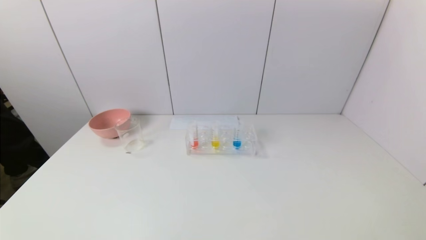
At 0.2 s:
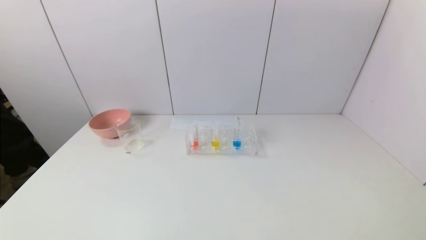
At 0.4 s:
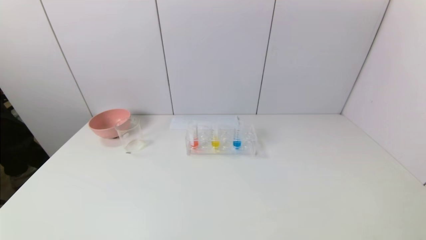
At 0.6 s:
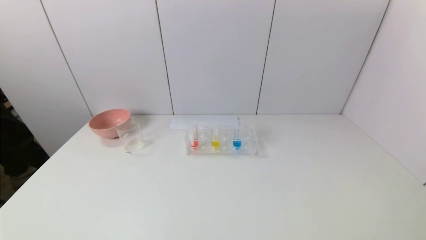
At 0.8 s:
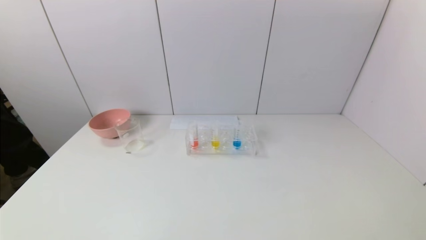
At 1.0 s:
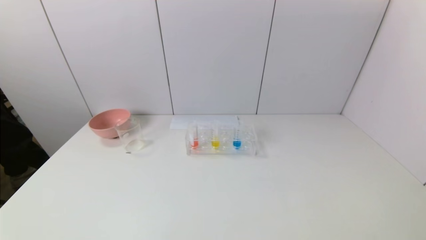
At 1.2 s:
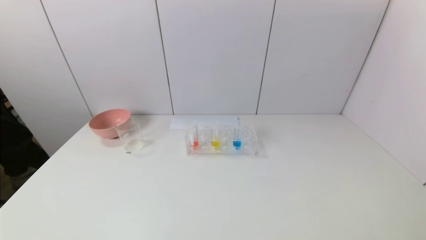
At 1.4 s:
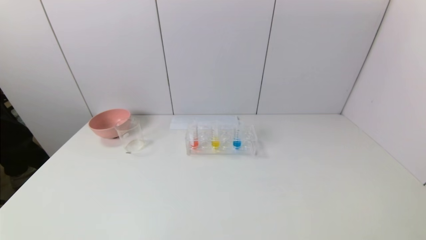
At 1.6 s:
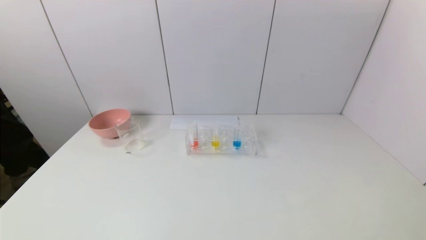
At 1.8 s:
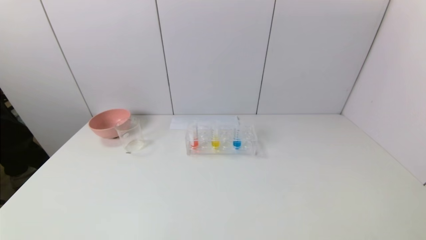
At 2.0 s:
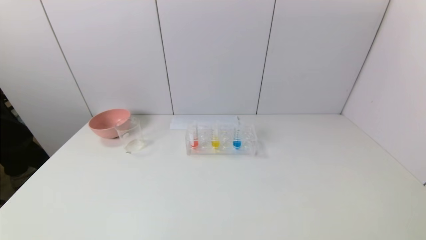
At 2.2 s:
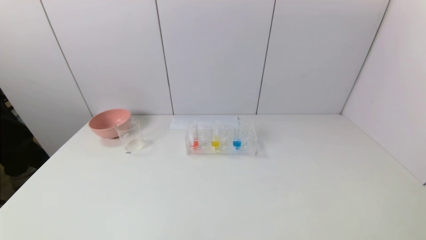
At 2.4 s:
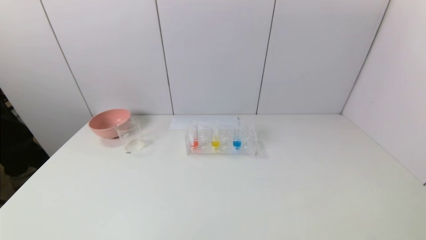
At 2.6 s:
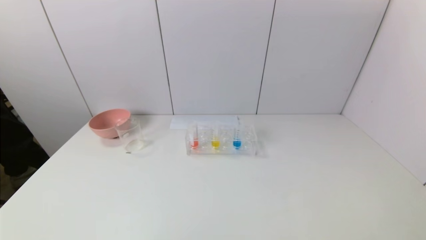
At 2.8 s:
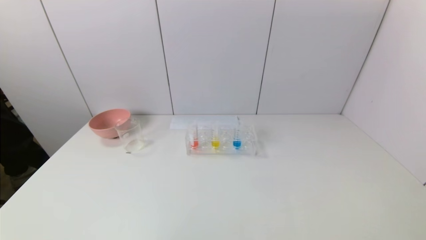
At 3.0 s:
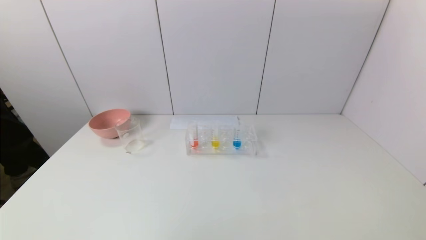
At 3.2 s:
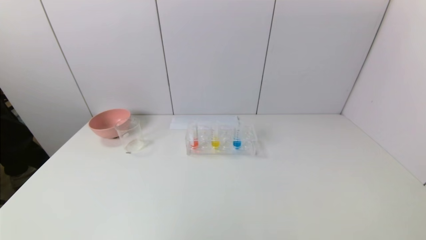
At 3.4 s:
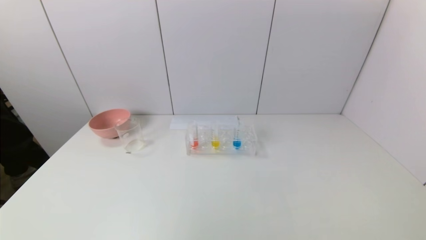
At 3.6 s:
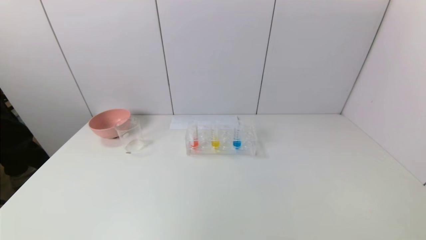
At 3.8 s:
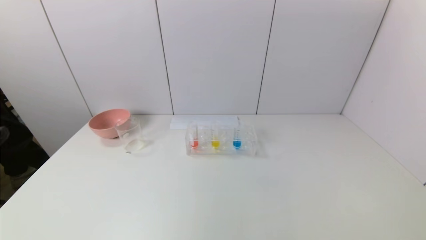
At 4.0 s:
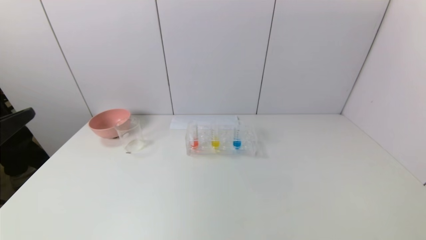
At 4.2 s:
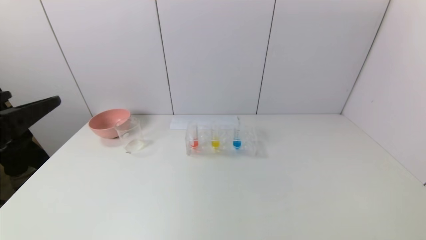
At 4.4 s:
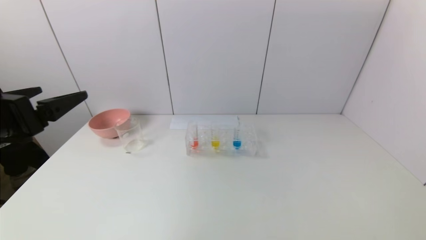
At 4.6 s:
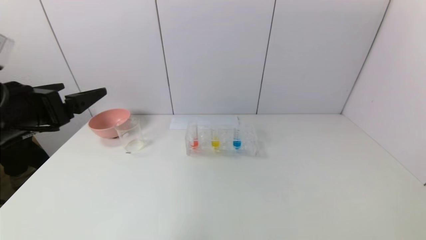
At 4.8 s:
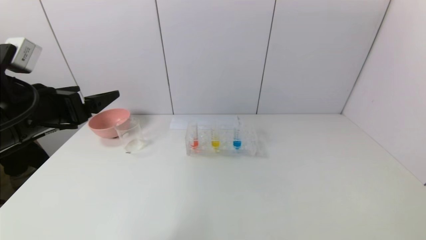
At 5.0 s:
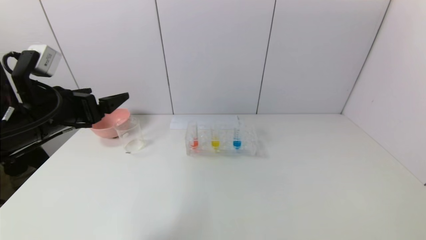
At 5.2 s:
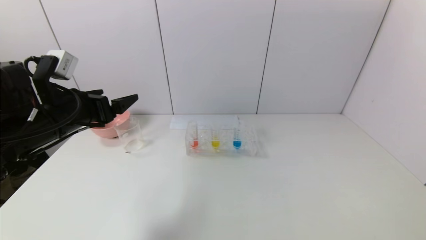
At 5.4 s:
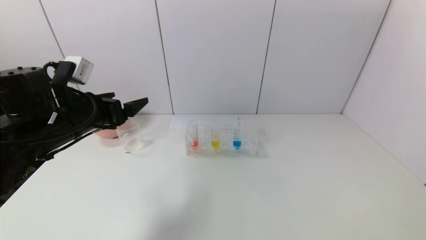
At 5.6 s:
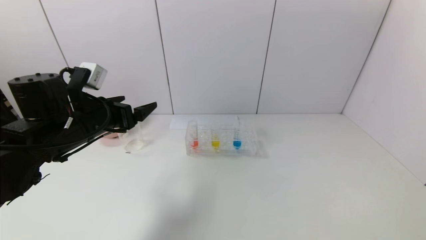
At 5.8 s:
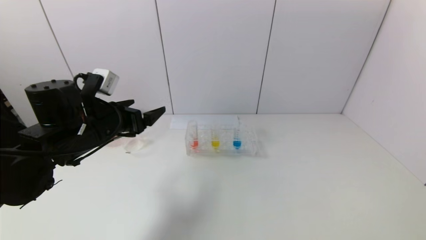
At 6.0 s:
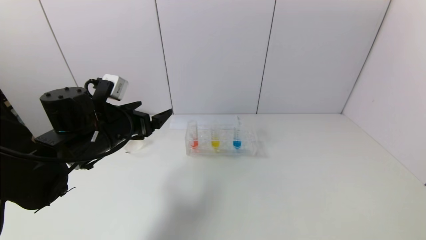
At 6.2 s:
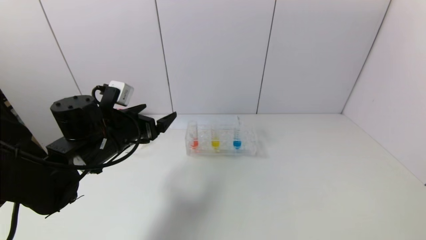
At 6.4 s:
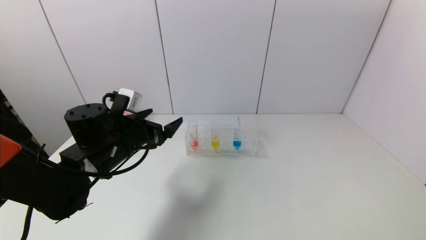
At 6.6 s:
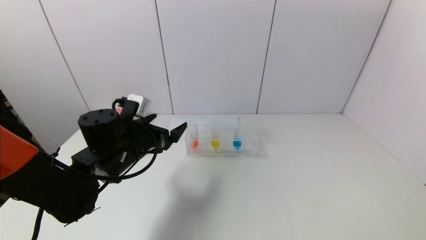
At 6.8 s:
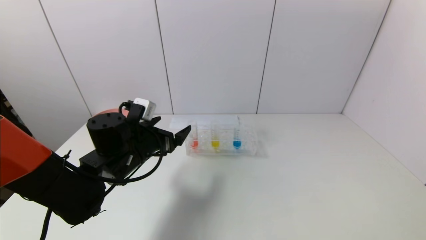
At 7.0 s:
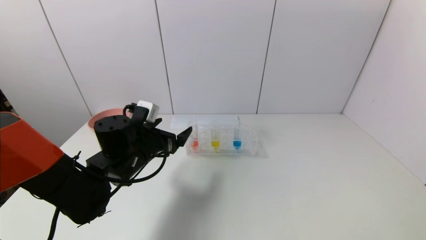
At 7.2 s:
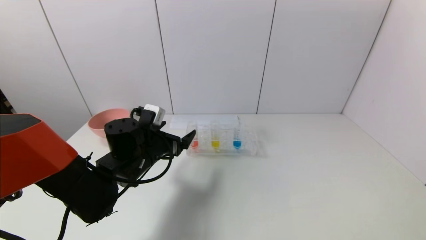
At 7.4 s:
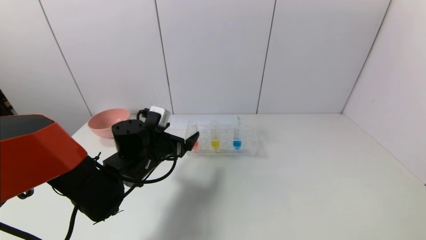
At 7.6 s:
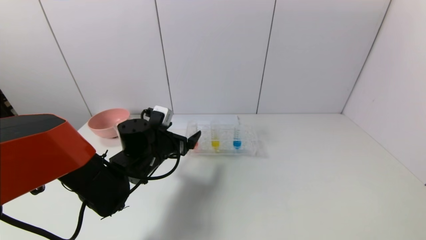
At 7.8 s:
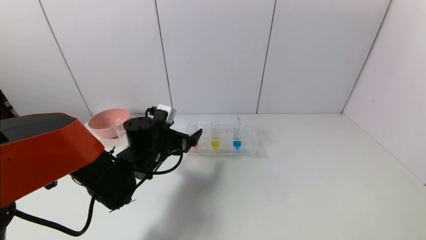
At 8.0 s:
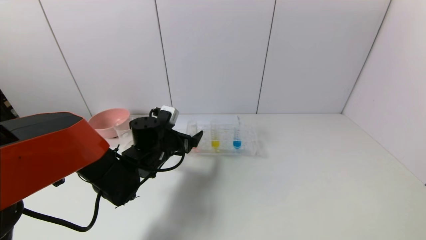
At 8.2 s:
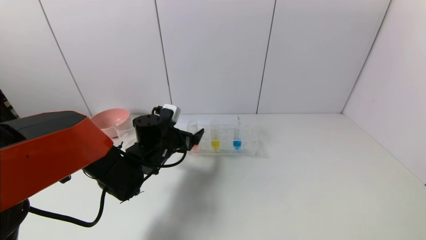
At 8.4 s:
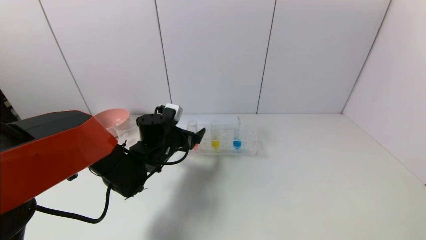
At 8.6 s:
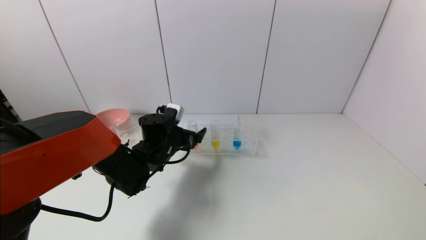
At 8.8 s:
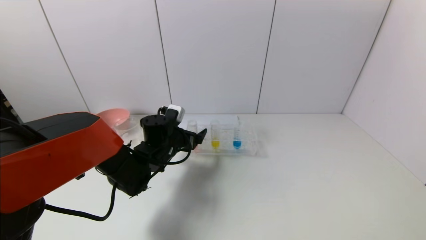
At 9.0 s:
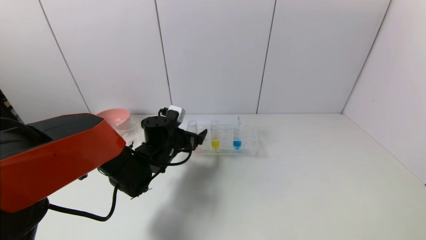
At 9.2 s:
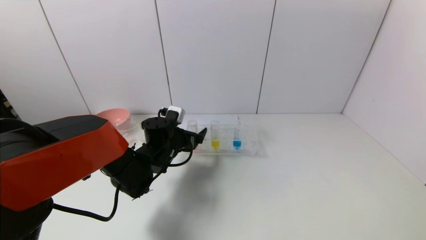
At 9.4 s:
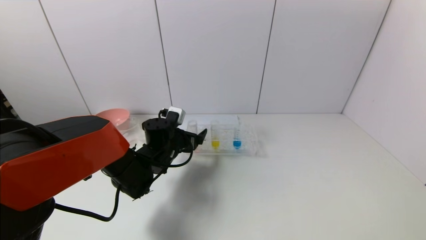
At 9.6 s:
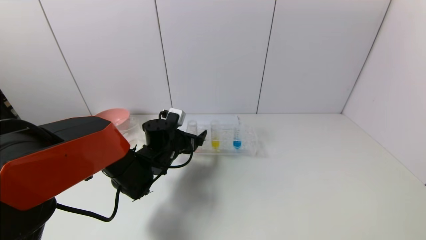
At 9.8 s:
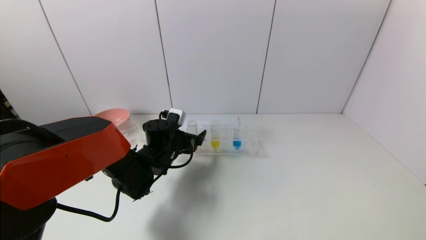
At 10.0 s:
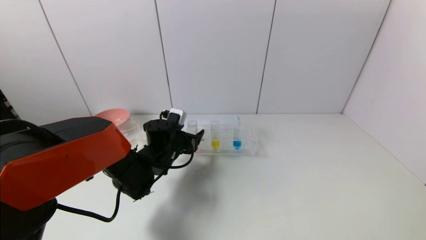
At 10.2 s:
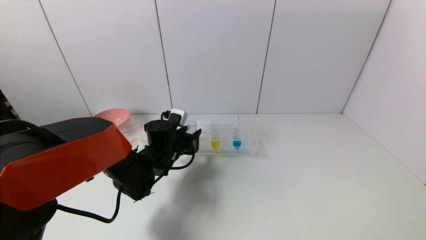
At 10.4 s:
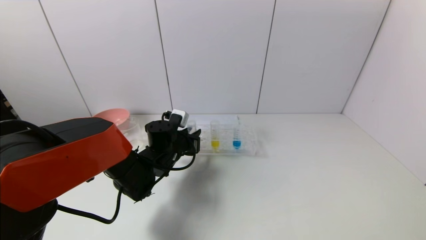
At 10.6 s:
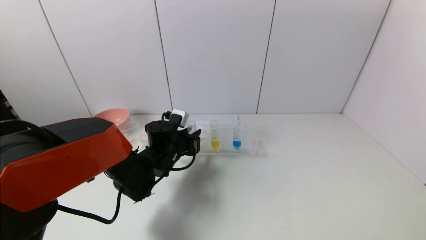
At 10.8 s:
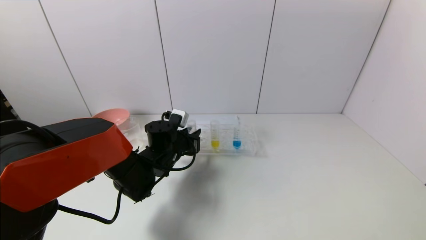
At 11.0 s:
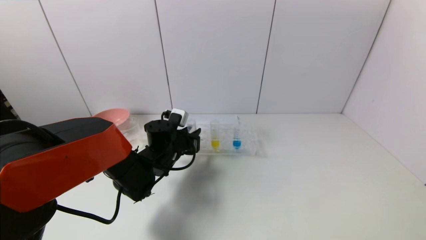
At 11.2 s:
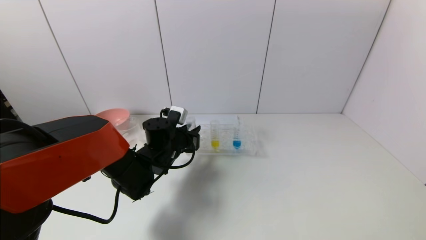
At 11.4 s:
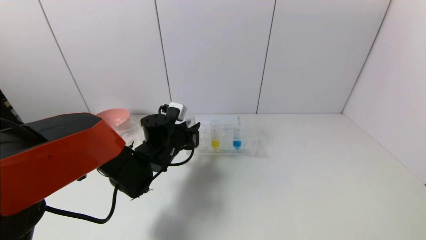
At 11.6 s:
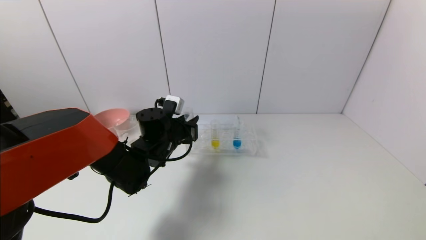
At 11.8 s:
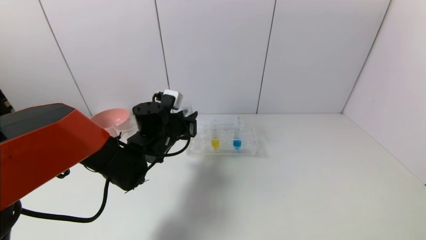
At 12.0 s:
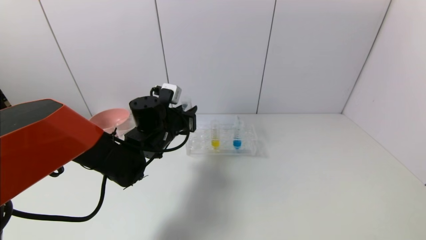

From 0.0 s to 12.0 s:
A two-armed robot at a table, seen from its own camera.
Task of the whole recording: pick up the test tube with yellow pigment and the test tube with red pigment by grippers and pour them into the beaker.
Step, from 0.0 s to 10.4 s: Grasp the red reagent with the left gripper.
From 0.0 s to 1.6 s: Both grippers stay put.
From 3.0 s to 4.4 s: The left gripper is displaced forward and upward by about 20 cm.
From 4.4 s to 6.0 s: The left gripper shifts about 15 cm forward, downward and to the right.
From 6.0 s to 7.6 s: The left gripper shifts roughly 10 cm downward and to the right.
From 7.6 s to 9.0 s: The left gripper moves roughly 5 cm.
From 9.0 s to 10.4 s: The left gripper closes.
From 10.4 s to 12.0 s: The left gripper is displaced upward by roughly 5 cm.

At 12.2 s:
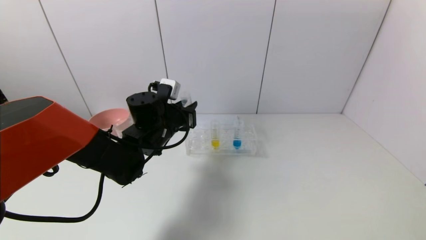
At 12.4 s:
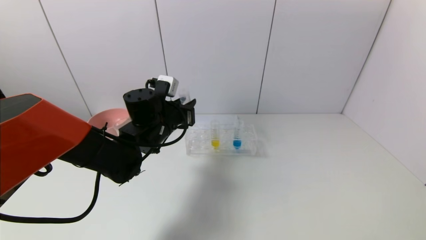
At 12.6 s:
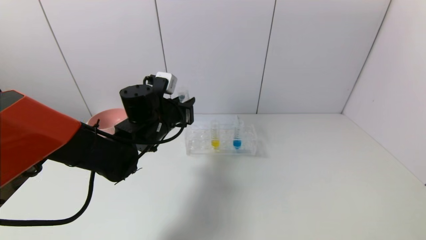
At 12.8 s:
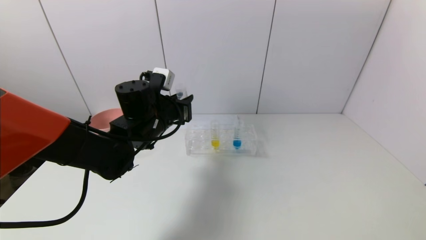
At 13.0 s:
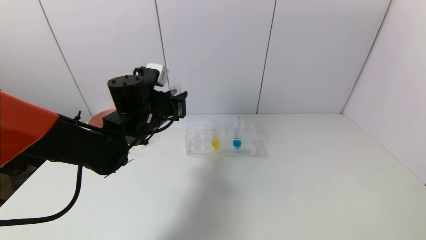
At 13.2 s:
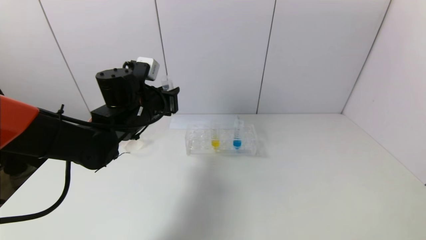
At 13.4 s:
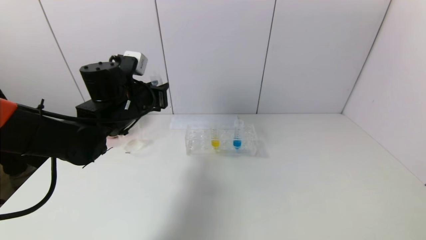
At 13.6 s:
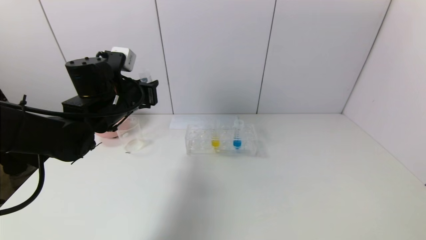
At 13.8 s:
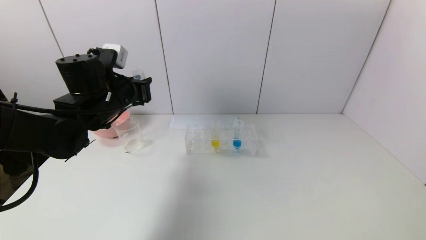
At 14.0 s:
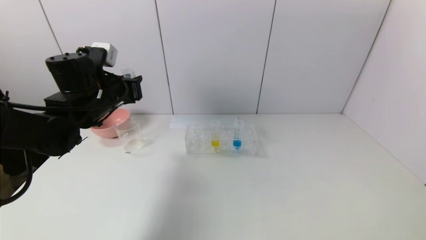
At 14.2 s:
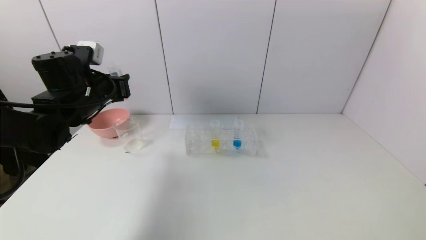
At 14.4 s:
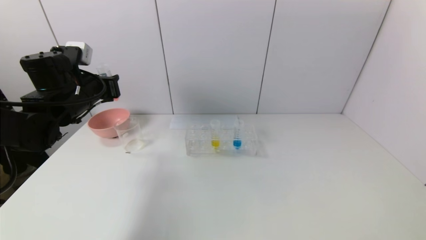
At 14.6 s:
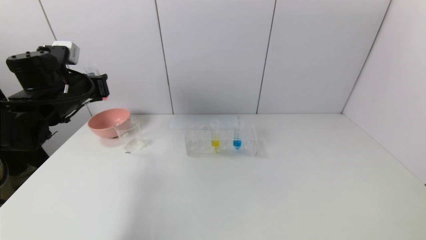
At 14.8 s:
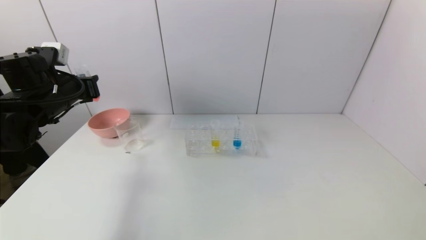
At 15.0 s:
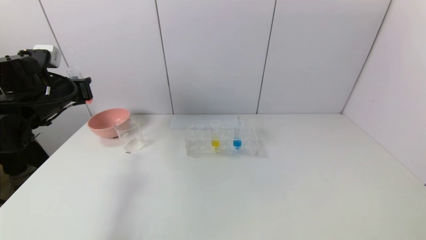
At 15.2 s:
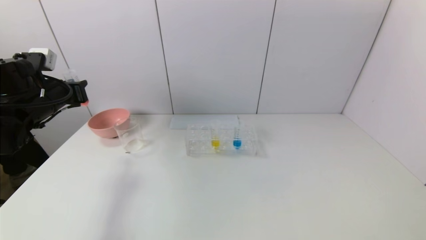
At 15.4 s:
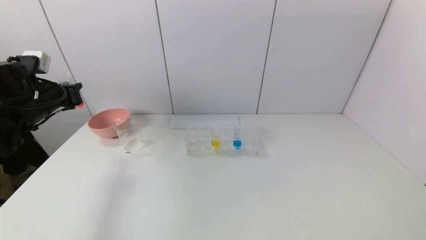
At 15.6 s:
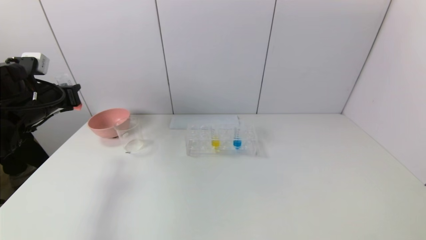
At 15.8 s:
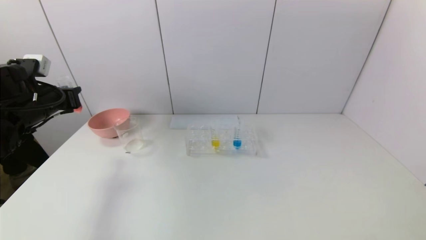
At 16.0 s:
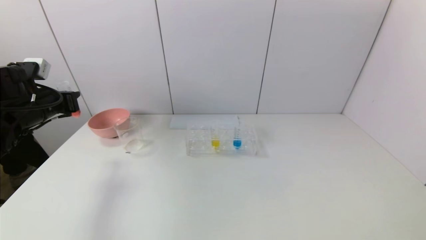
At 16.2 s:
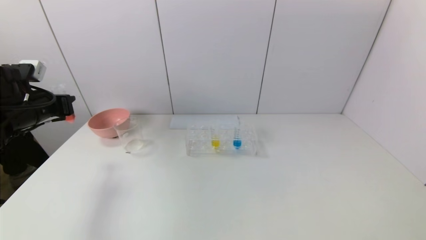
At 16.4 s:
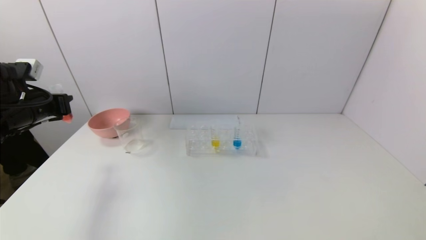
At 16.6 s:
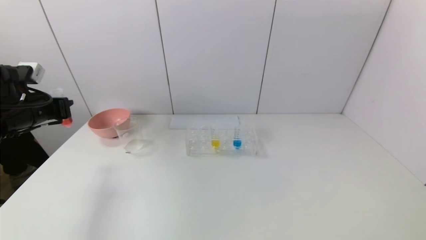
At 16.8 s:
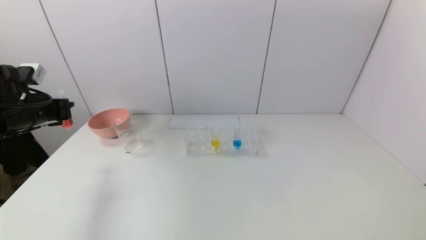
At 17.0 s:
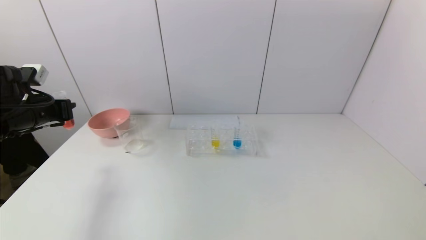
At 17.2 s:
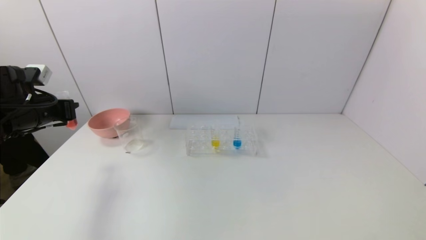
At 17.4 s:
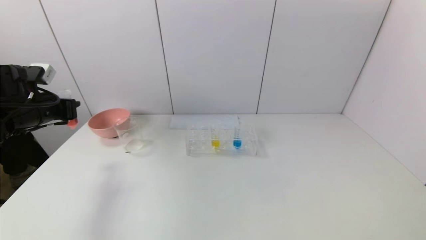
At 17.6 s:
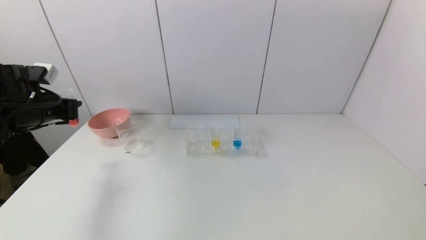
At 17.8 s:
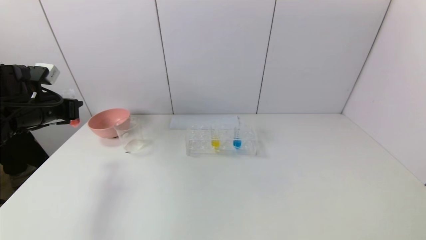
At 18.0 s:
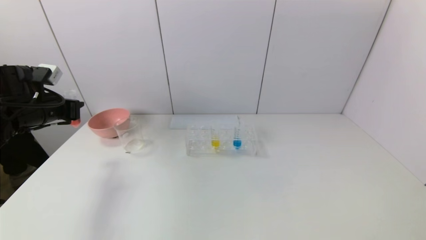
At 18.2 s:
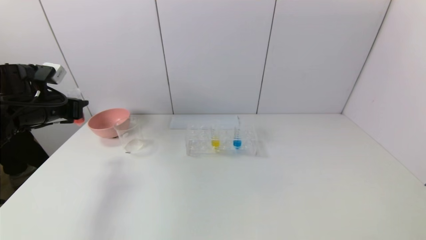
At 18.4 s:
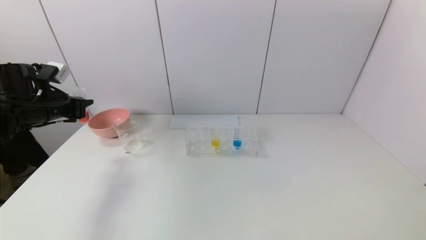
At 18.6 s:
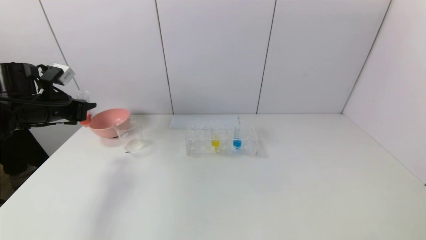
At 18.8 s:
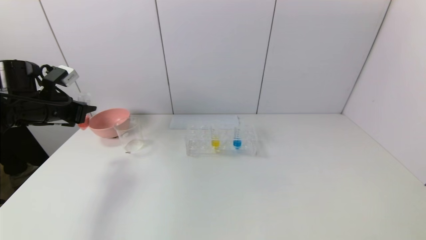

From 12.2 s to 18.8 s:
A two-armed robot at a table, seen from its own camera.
Task of the whole recording: pick up the test tube with yellow pigment and the test tube with red pigment by grippers and pour them into the beaker.
From 12.2 s to 13.8 s: The left gripper goes approximately 10 cm to the left and upward.
From 13.8 s to 15.4 s: The left gripper moves to the left, about 15 cm.
From 15.4 s to 17.2 s: The grippers stay close to where they were, moving slightly.
